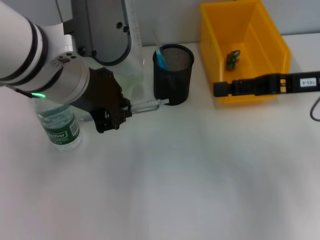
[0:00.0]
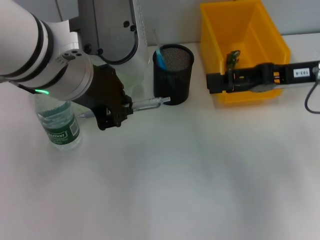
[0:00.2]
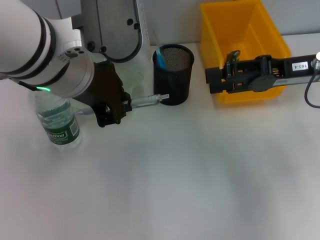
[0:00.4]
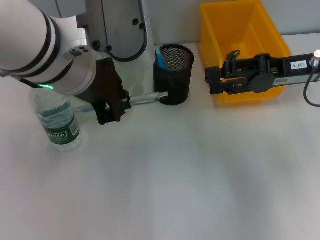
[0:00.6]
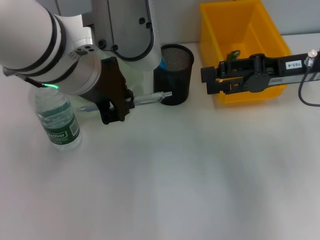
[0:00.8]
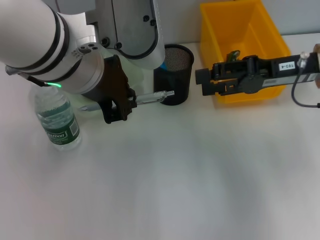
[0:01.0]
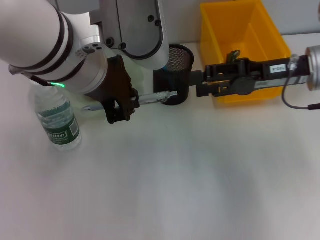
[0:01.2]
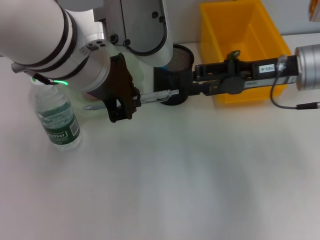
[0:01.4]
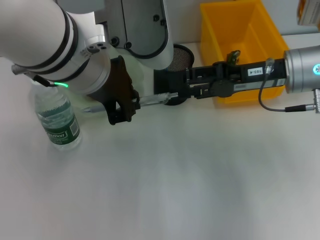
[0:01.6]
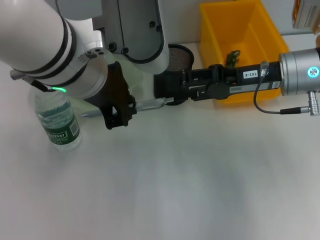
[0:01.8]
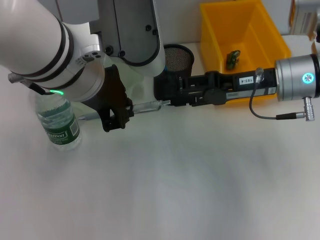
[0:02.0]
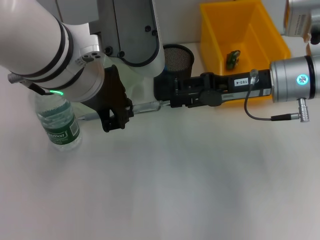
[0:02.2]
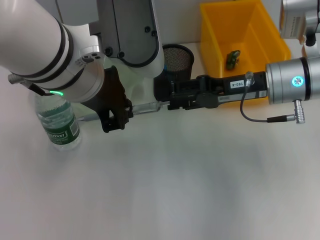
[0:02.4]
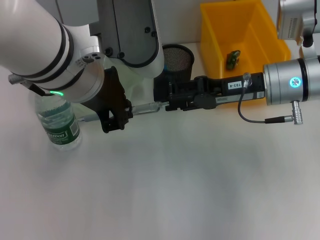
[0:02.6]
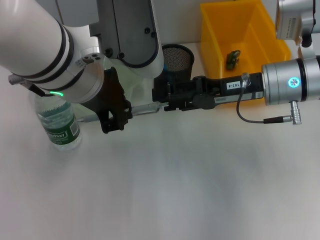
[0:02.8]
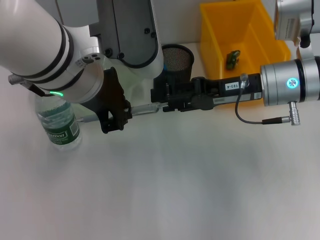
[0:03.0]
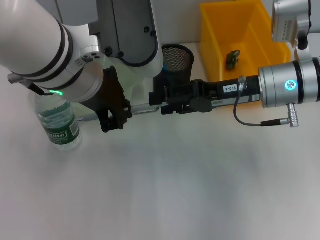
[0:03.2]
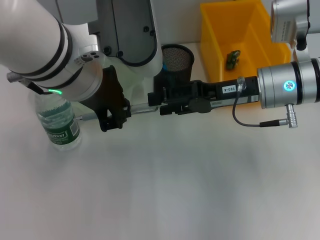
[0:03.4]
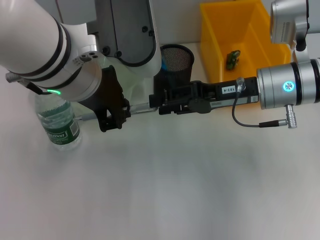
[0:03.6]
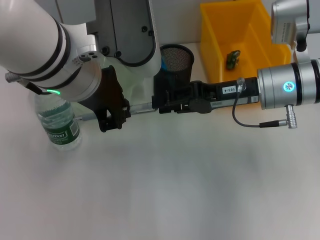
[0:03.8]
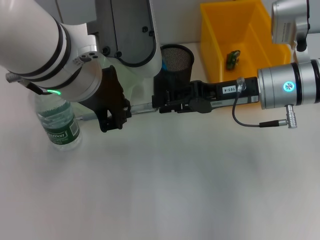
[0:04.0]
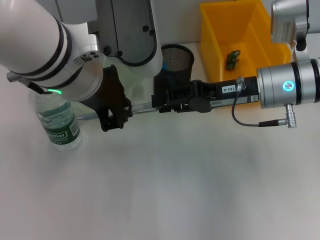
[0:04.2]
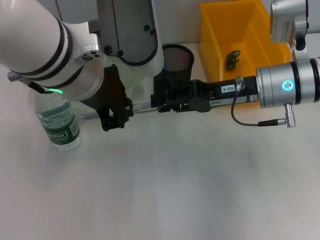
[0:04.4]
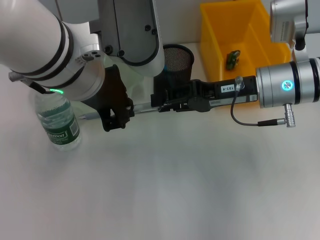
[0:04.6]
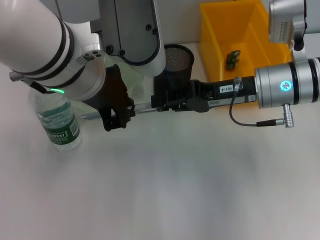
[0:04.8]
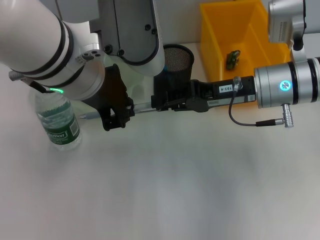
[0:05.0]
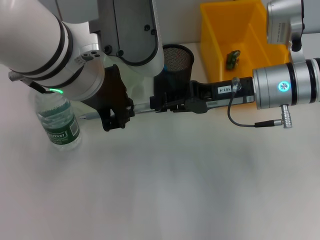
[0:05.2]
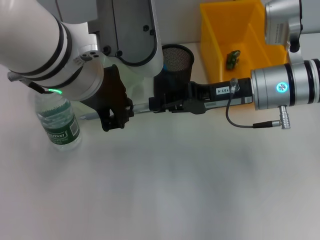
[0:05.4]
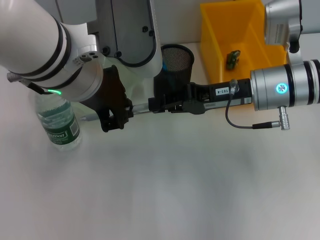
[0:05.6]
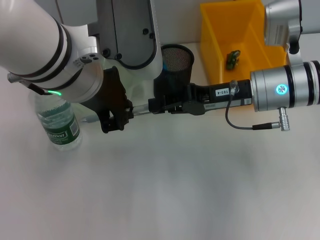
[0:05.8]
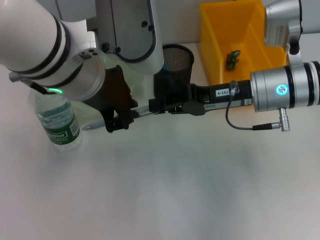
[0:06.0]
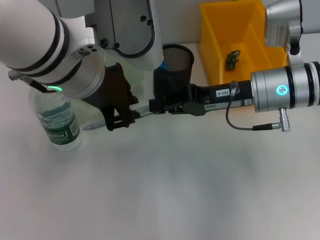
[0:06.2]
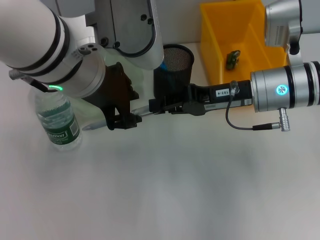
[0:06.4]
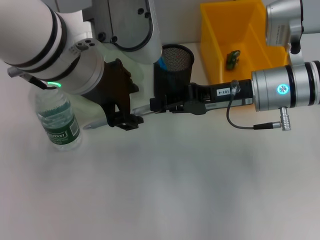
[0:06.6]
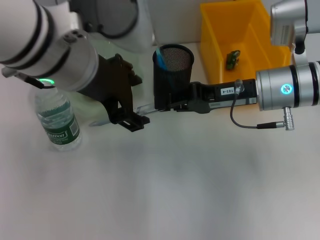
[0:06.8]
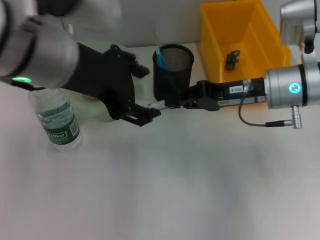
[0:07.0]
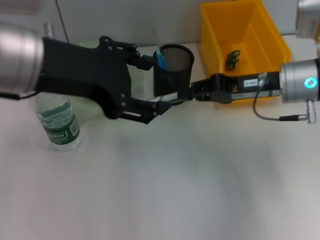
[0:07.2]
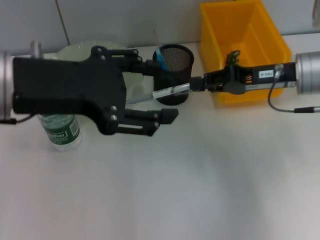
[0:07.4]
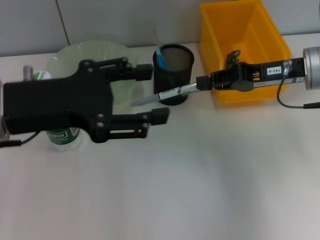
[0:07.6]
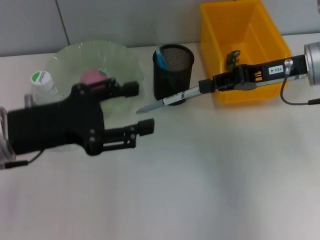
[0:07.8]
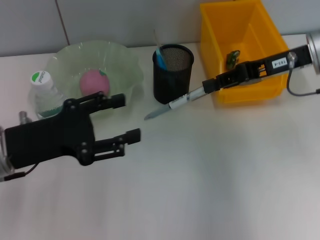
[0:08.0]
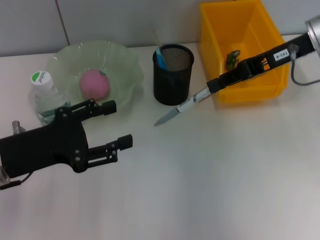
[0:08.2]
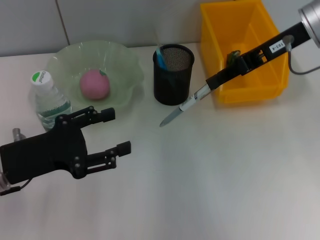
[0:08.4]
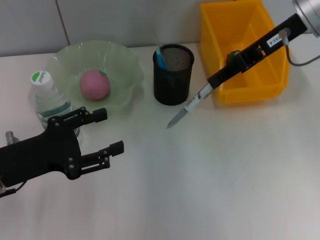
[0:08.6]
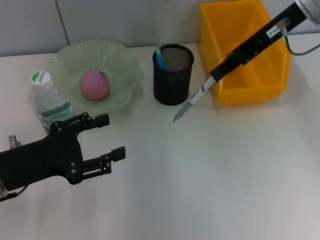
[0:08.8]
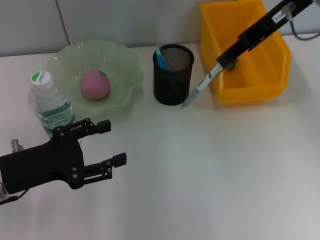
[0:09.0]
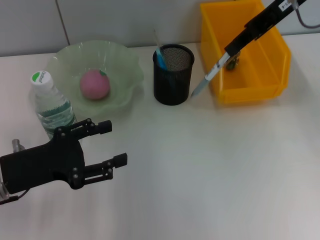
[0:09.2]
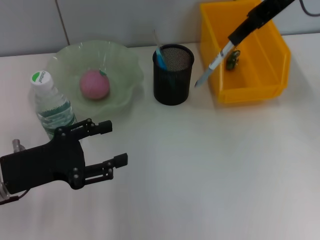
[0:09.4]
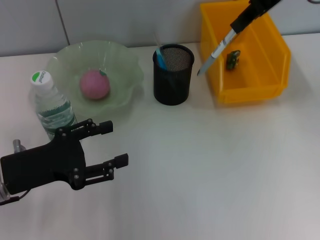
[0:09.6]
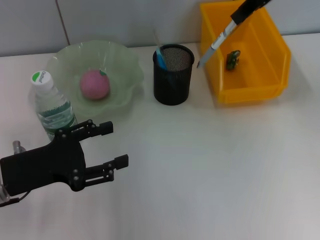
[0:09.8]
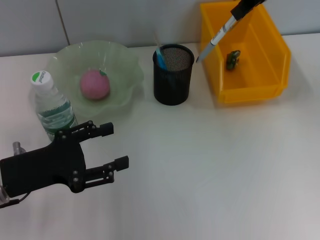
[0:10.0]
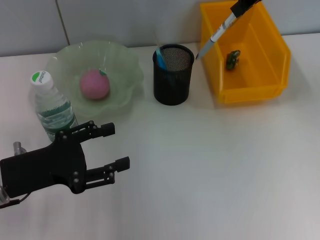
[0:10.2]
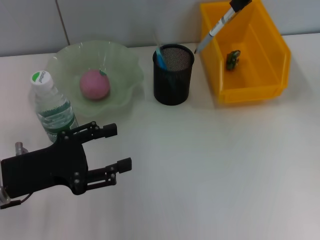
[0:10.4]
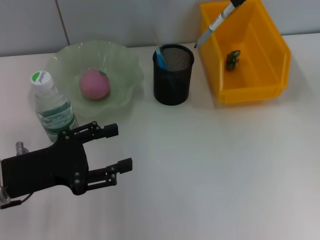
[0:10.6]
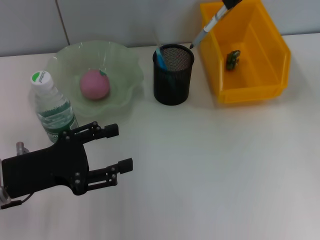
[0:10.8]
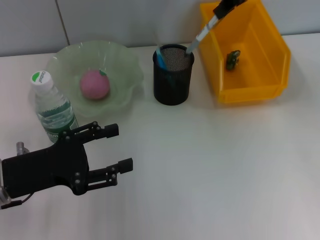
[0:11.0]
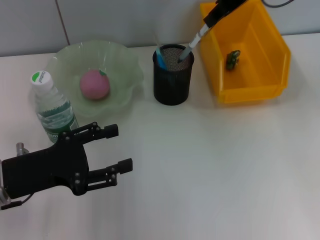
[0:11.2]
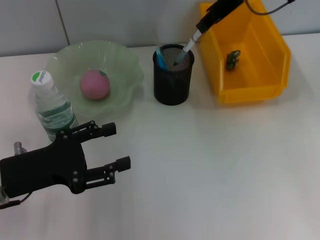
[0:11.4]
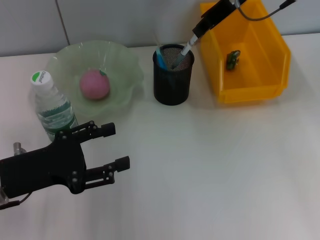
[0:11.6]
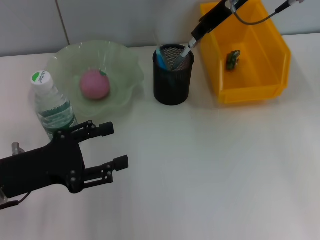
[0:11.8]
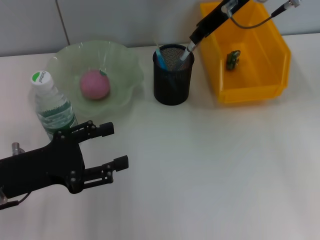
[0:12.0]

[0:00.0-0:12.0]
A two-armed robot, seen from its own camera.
Step, 0:00.0 to 0:06.2: Pass the gray spring-action pen from the left hand to the right hand.
0:00.0 to 0:01.6: The right gripper is displaced to the left by about 5 cm.
0:03.0 to 0:04.4: The right gripper closes up.
0:04.4 to 0:06.0: Both grippers stay put.
0:06.0 to 0:07.6: The right gripper shifts some 5 cm to the right. Meanwhile the left gripper travels to the left by some 10 cm, and opens its fingers.
0:07.6 to 0:09.0: The left gripper goes roughly 10 cm downward; the right gripper shifts approximately 15 cm upward and forward.
0:09.0 to 0:10.4: The right gripper shifts by about 5 cm.
0:10.4 to 0:12.0: The right gripper travels downward and to the left by approximately 10 cm.

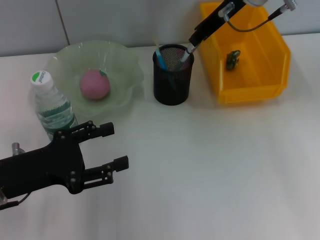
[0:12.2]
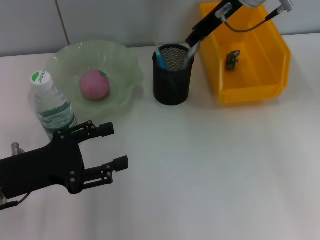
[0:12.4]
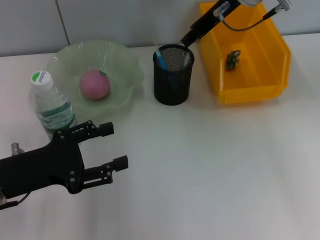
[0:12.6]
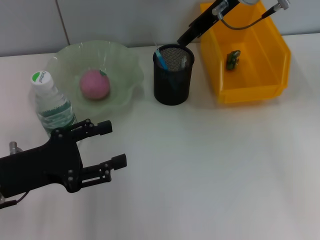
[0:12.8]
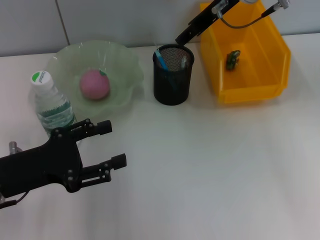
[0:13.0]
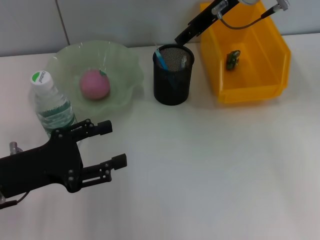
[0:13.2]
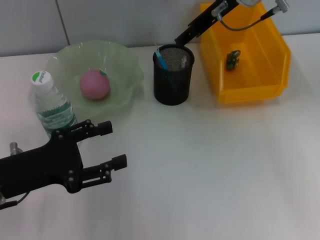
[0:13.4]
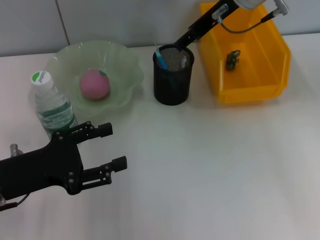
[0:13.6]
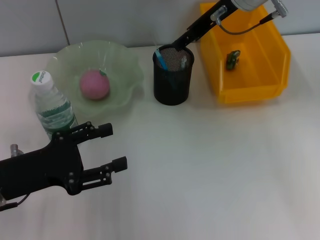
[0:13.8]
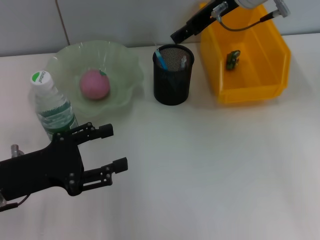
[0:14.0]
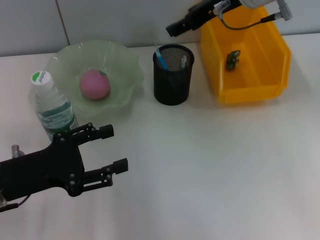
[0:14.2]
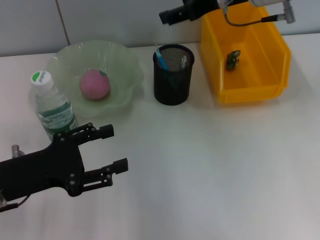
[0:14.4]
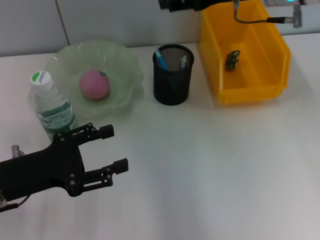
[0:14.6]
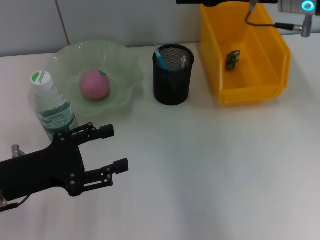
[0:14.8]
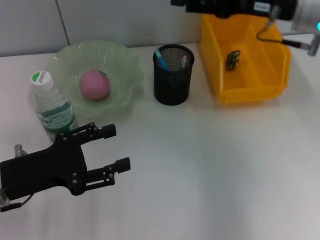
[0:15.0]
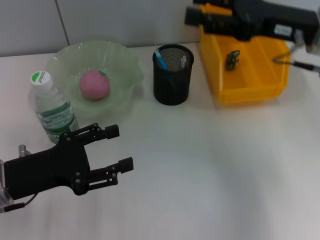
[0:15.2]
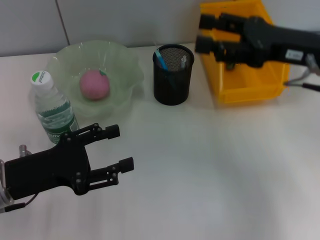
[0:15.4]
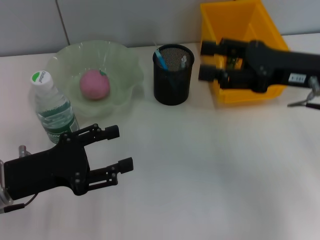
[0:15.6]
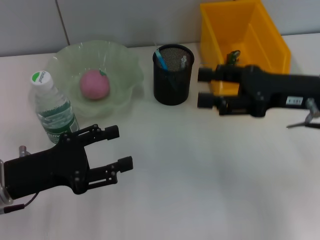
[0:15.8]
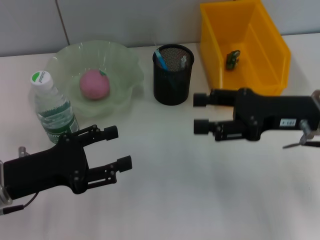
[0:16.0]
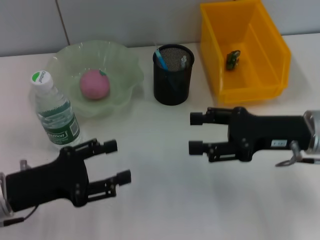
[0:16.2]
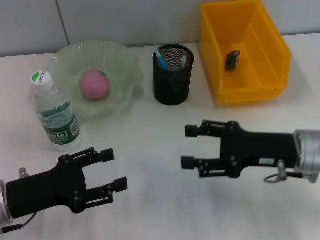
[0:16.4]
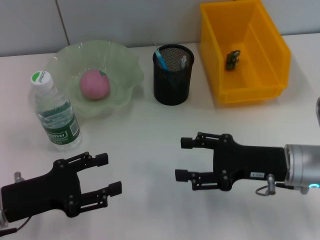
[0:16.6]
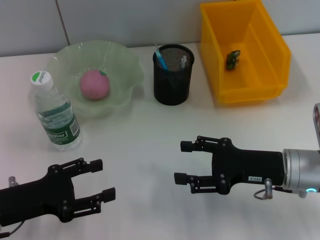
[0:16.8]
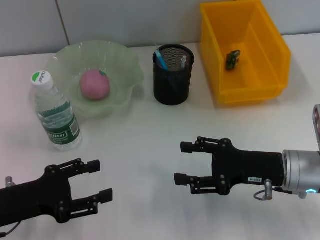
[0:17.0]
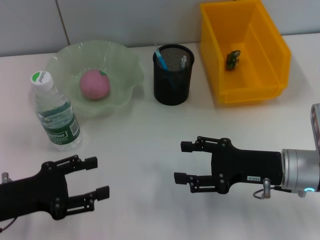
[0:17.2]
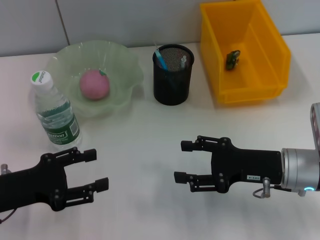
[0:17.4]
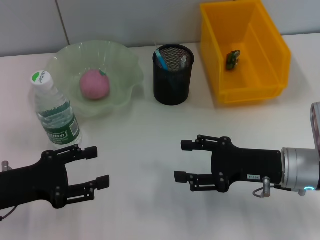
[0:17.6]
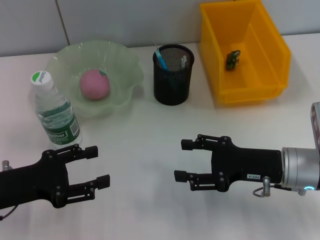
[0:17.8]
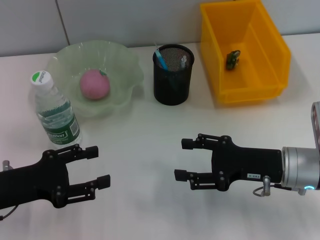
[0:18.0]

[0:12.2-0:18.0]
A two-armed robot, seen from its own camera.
0:12.2 to 0:13.6: The right gripper opens its fingers.
0:13.6 to 0:15.0: The right gripper is displaced backward and to the right by approximately 10 cm.
0:15.0 to 0:16.6: The right gripper travels downward and backward by some 20 cm.
0:16.6 to 0:18.0: The grippers move only a little.

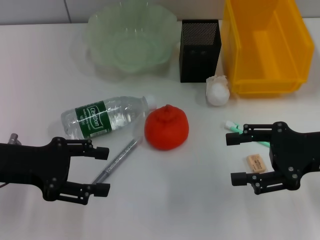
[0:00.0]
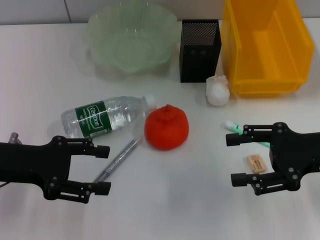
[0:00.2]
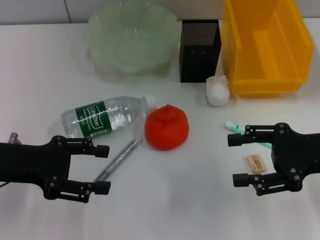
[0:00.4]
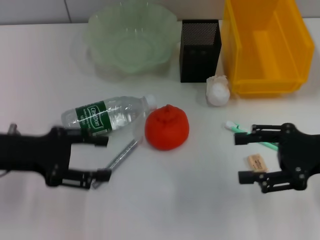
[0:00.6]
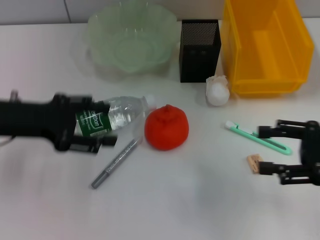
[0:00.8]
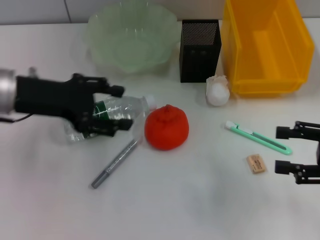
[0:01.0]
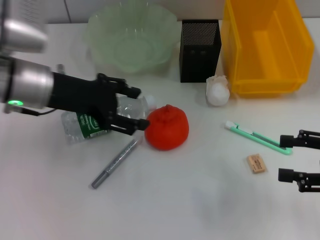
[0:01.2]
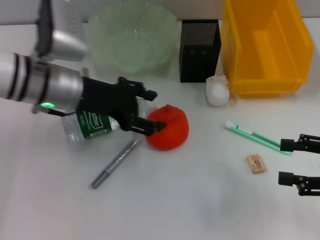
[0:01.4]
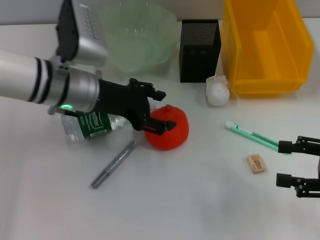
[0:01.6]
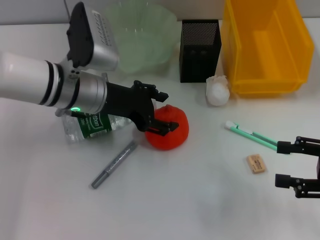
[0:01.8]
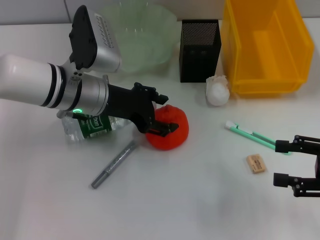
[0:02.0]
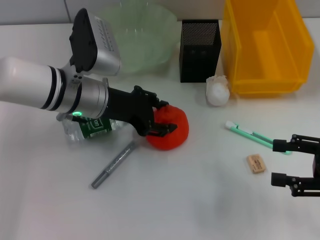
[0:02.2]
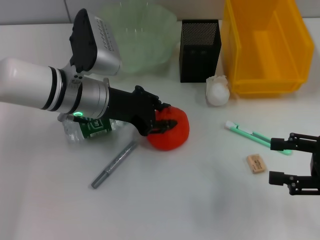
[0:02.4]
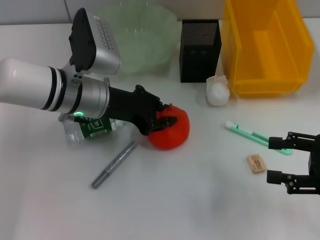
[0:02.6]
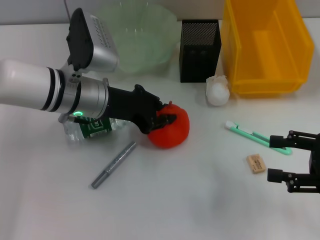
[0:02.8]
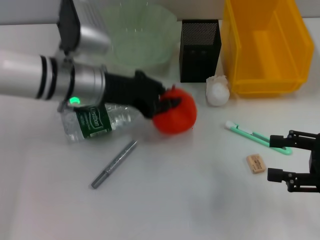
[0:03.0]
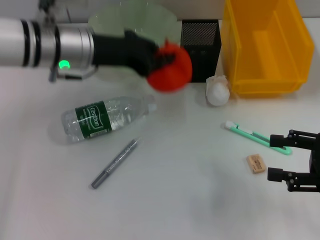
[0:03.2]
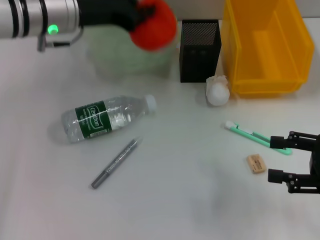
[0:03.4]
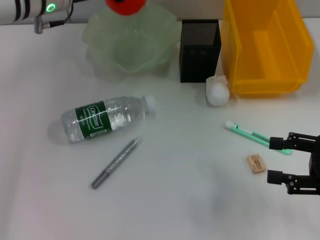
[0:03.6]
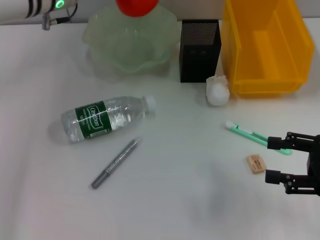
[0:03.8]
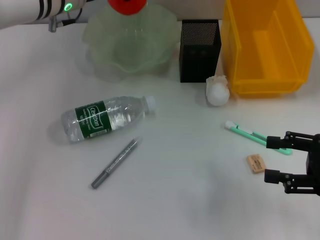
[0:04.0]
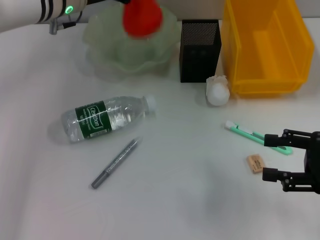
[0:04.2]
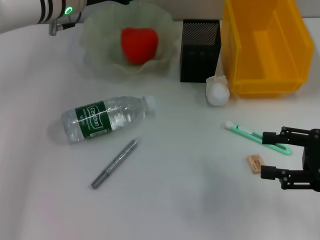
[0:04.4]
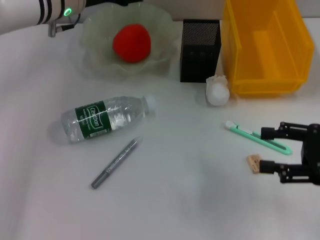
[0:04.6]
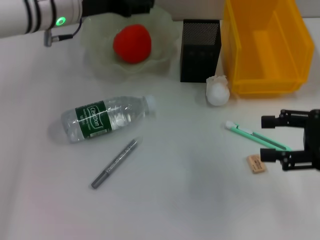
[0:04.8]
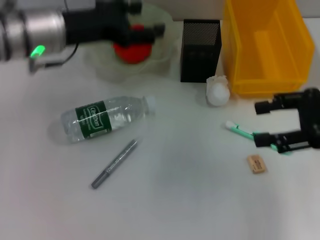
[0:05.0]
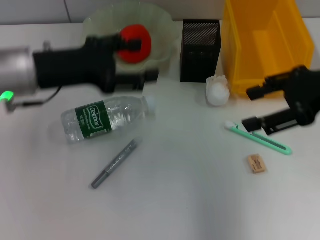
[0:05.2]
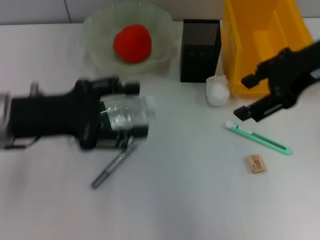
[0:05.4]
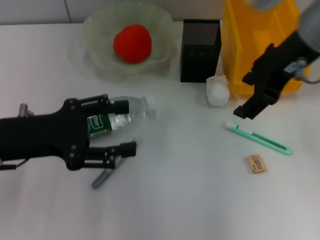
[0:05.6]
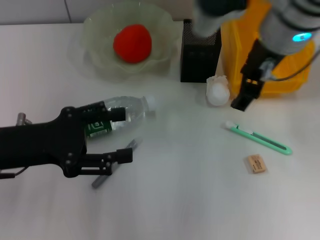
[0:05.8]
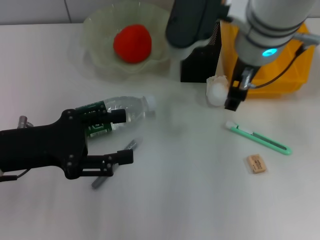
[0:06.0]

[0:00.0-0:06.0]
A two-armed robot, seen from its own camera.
Step, 0:00.0 to 0:02.4: Grab the orange with the left hand.
Step, 0:02.6 to 0:04.6: Place the orange into the fruit bowl with the left hand.
0:00.0 to 0:01.6: The right gripper moves to the right, roughly 5 cm, while the left gripper heads to the right and forward, covering about 15 cm.
0:01.6 to 0:03.0: The left gripper closes its fingers.
0:03.0 to 0:04.4: The left gripper moves forward, about 10 cm.
0:04.4 to 0:06.0: The right gripper travels to the left, upward and forward by about 30 cm, while the left gripper shifts about 20 cm backward and to the left, and opens up.
